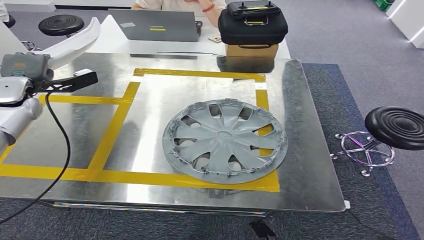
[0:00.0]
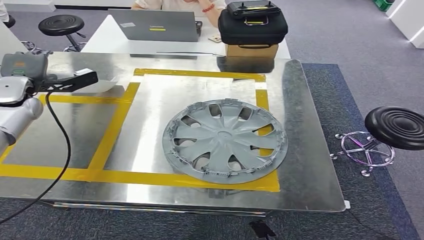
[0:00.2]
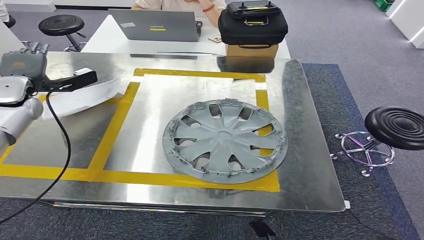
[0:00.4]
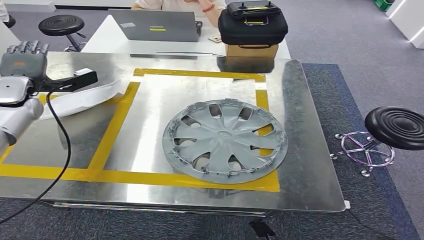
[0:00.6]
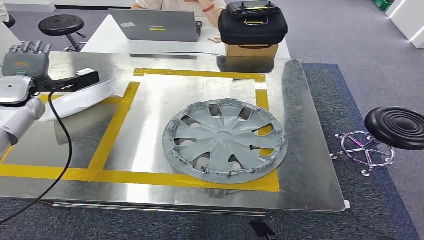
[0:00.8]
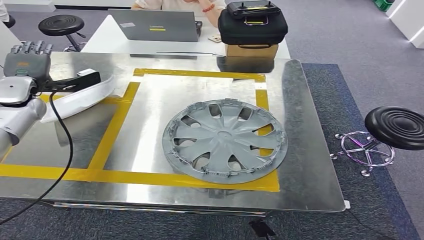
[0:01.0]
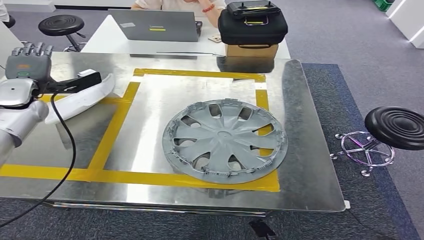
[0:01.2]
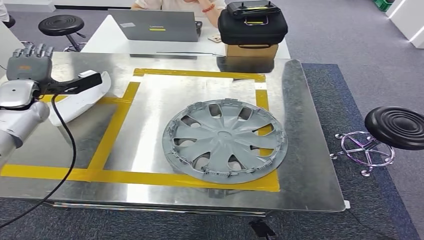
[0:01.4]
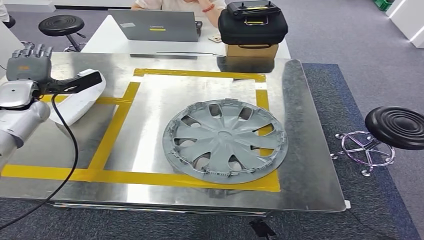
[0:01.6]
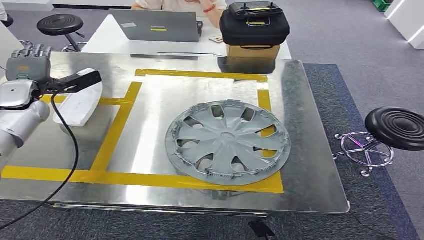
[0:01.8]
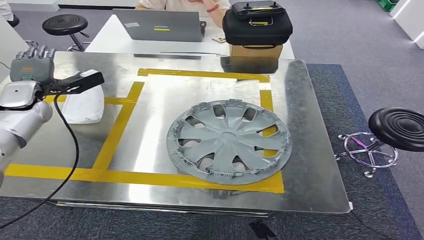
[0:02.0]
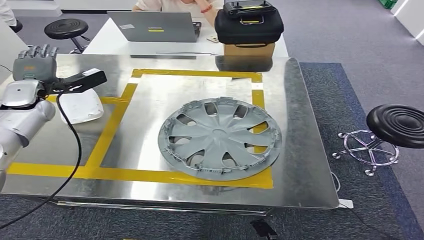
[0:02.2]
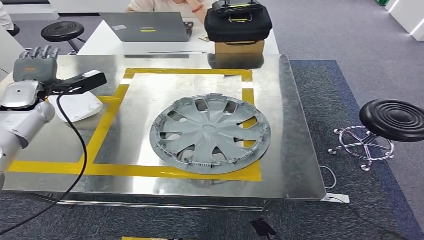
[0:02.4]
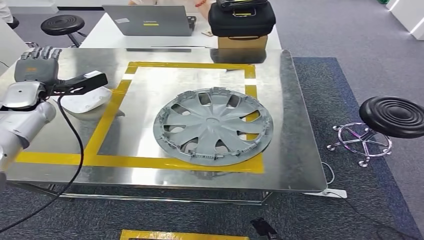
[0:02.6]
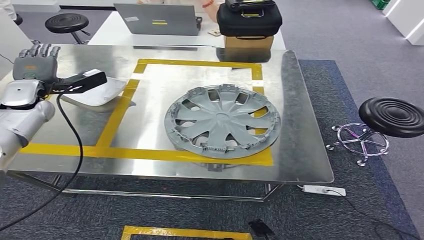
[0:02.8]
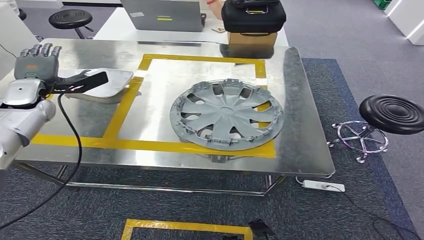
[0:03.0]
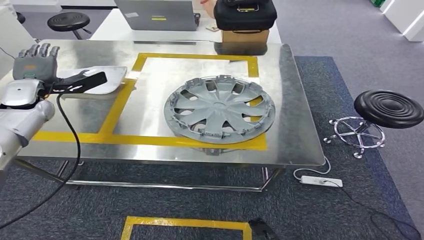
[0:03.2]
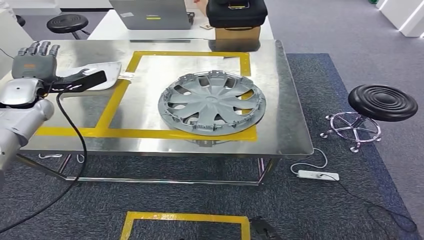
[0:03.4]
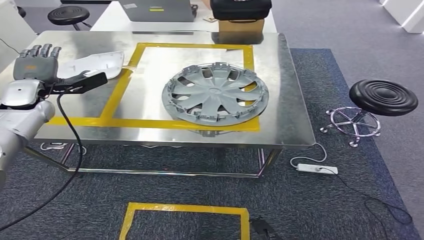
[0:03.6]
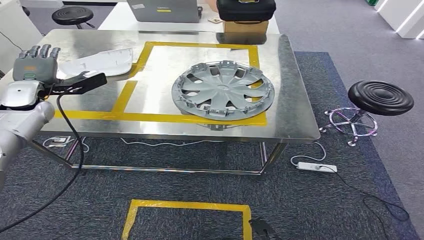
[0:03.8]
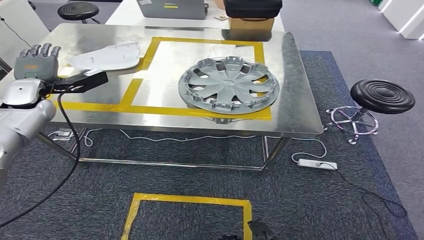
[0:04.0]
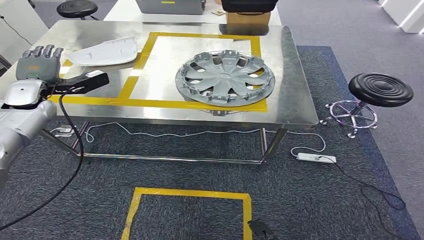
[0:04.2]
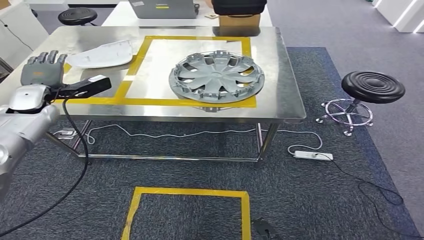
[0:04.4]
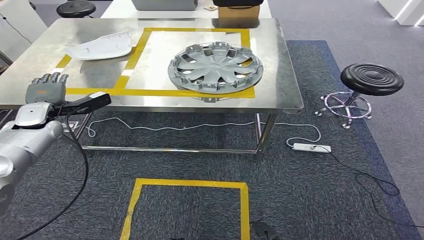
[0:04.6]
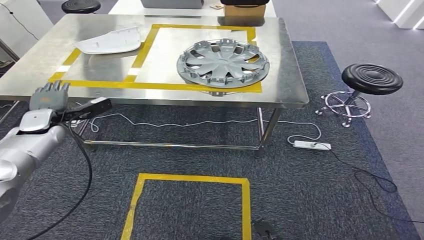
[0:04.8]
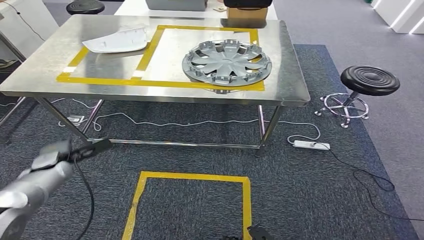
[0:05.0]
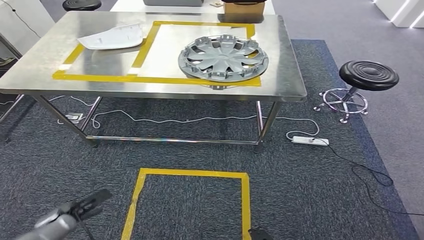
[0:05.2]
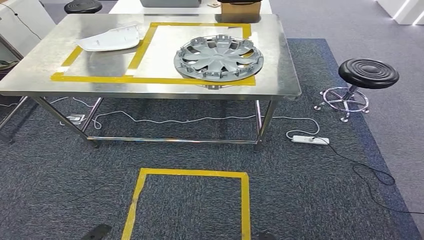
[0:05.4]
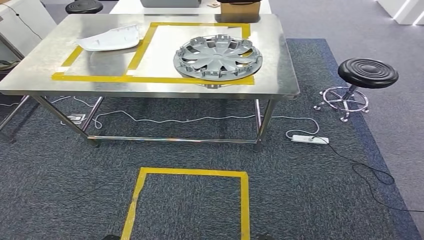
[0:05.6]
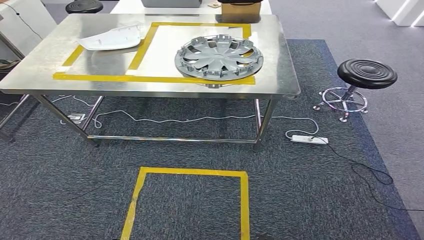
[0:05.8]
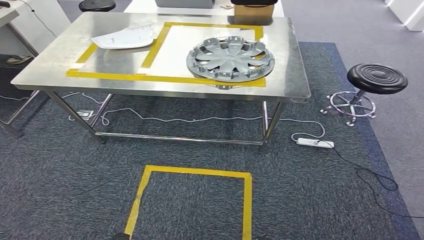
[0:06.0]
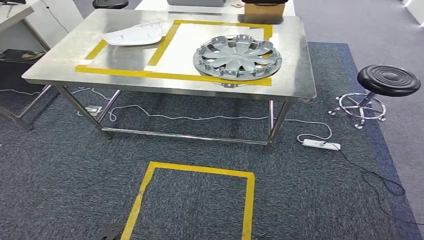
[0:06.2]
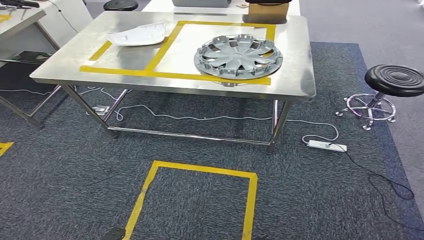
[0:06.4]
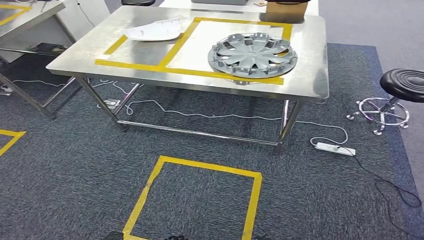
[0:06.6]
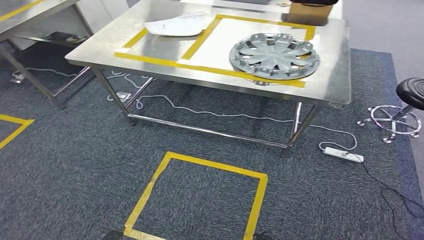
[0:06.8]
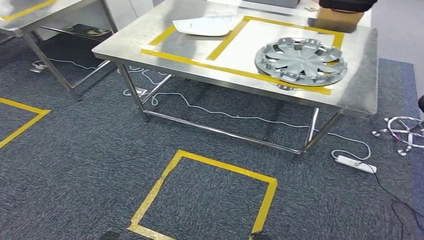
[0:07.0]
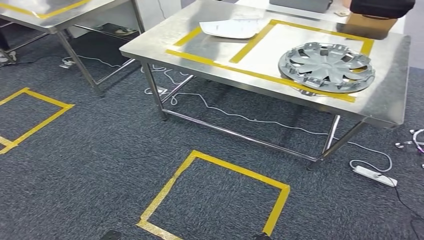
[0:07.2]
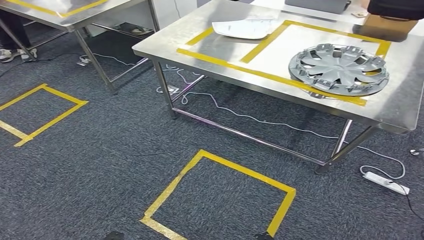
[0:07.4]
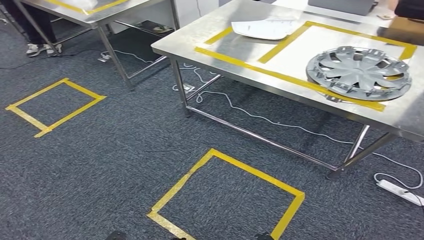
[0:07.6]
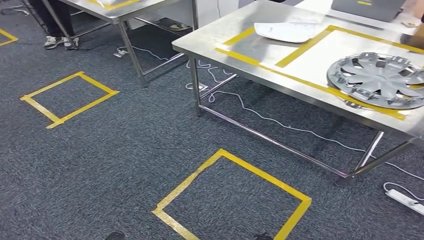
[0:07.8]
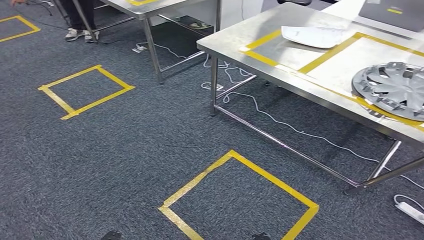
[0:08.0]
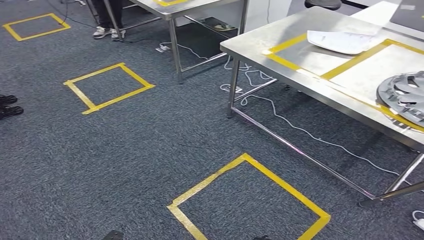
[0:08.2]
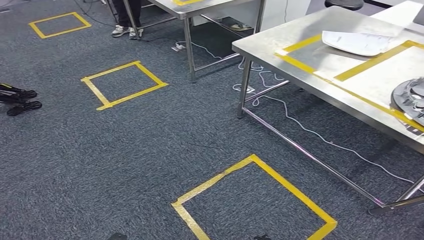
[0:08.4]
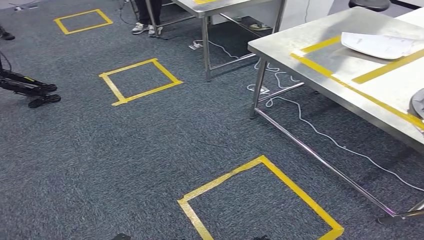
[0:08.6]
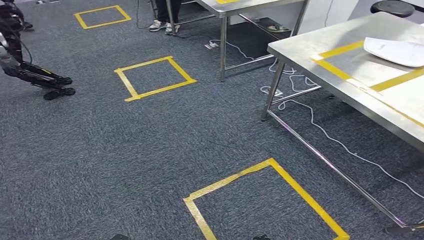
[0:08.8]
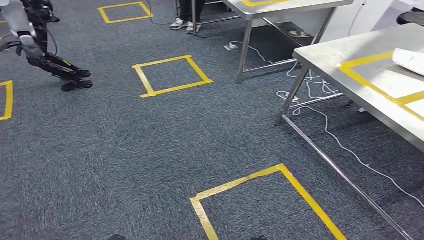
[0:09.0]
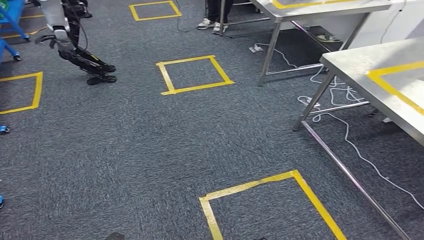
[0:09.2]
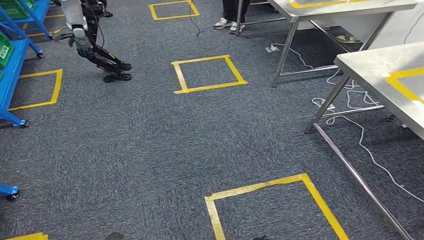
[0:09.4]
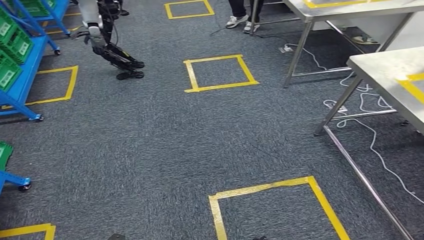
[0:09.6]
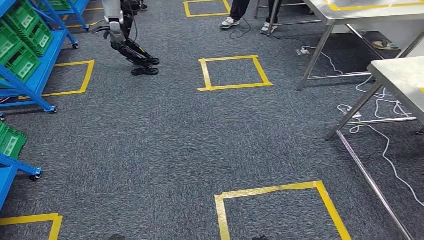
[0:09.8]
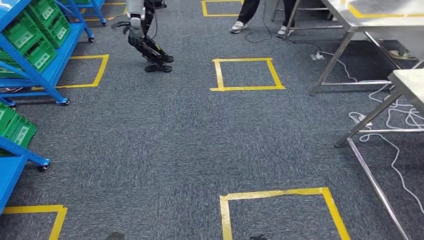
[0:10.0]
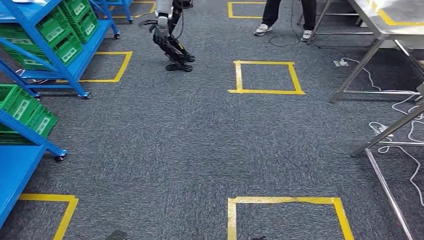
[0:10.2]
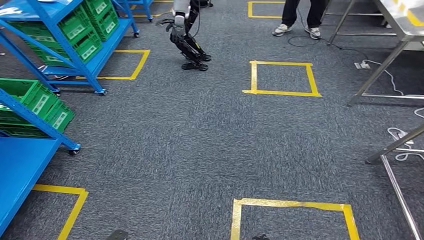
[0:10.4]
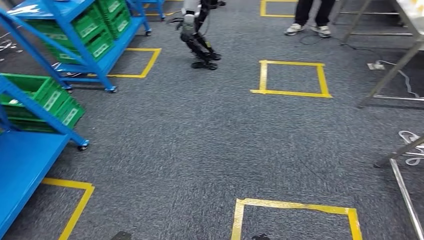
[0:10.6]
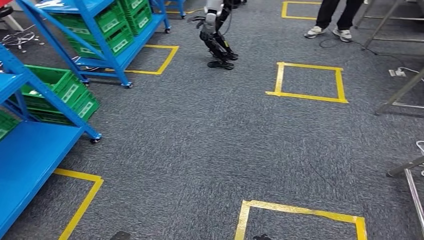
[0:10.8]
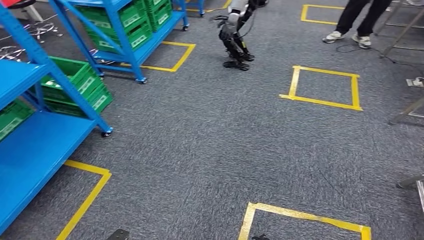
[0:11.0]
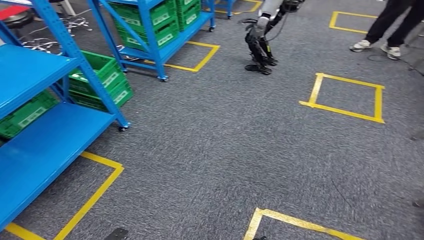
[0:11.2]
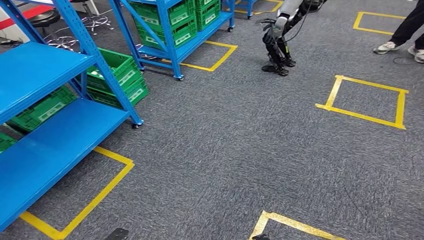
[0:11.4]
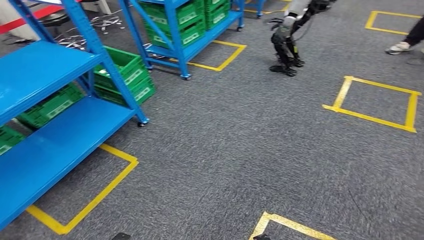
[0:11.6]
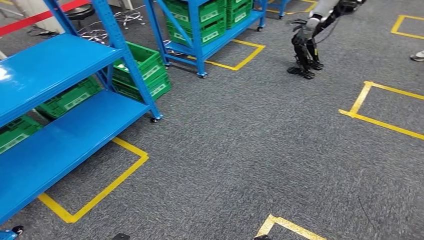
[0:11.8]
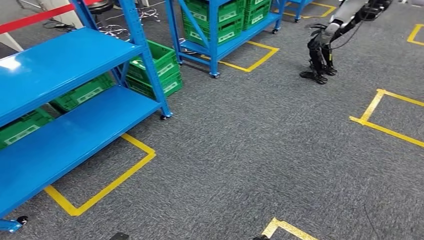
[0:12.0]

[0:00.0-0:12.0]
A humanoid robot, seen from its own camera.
Step, 0:00.0 to 0:02.6: Insert the small component into the corresponding slot on the workbench.
0:00.0 to 0:01.6: Both hands stay about where they are.

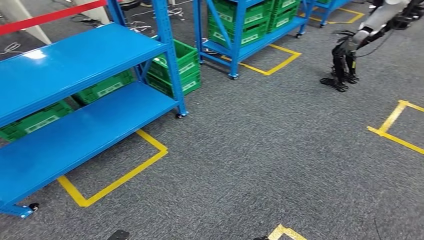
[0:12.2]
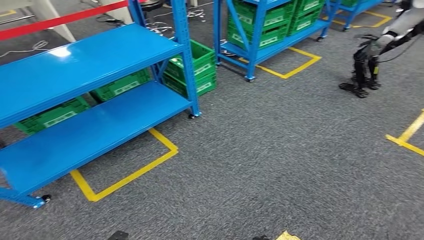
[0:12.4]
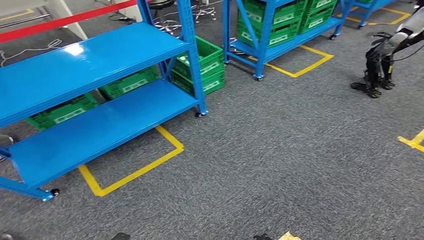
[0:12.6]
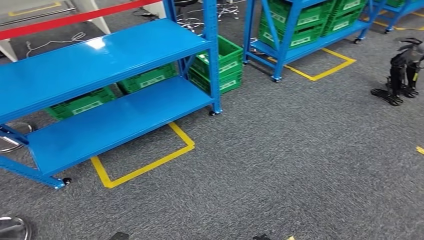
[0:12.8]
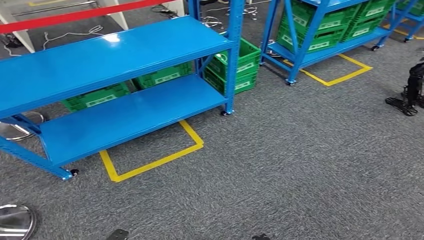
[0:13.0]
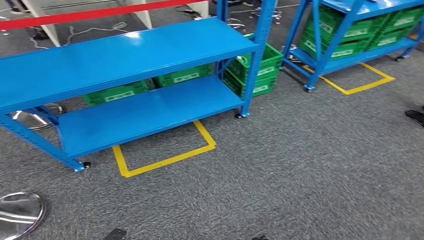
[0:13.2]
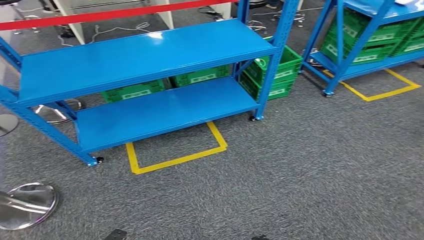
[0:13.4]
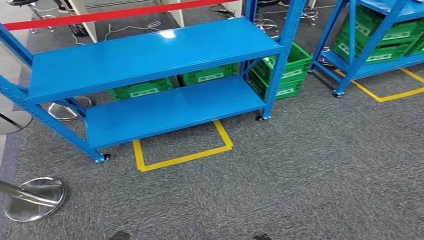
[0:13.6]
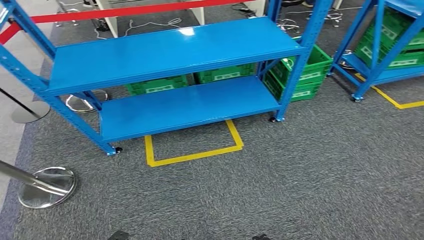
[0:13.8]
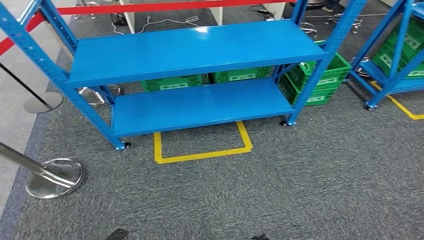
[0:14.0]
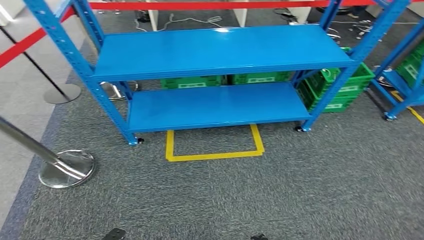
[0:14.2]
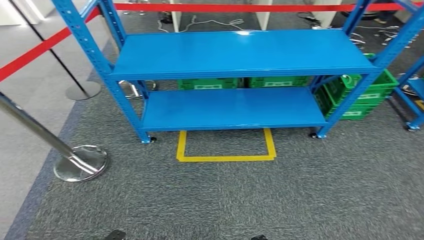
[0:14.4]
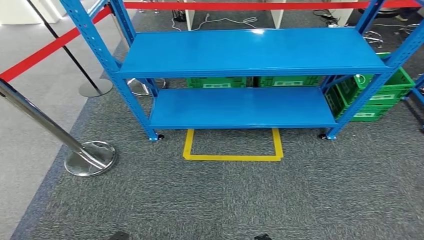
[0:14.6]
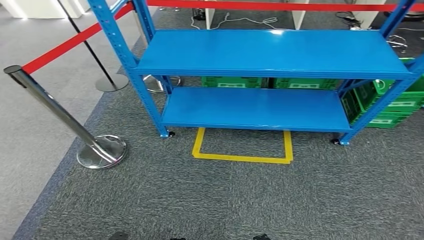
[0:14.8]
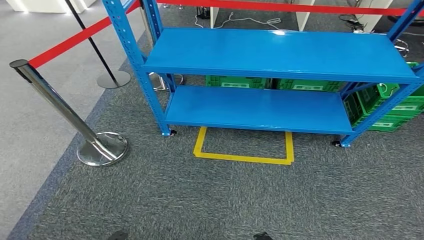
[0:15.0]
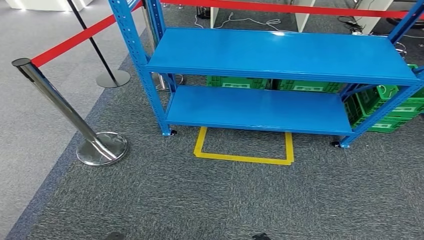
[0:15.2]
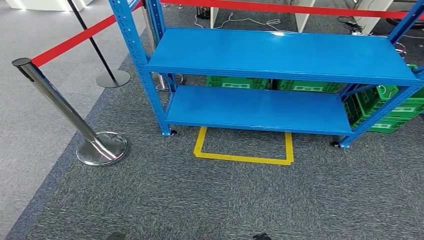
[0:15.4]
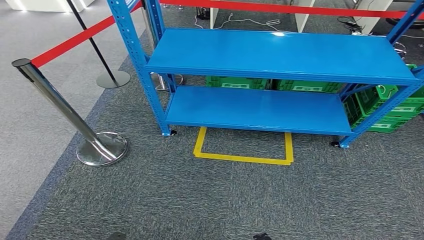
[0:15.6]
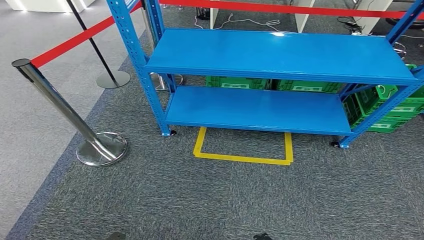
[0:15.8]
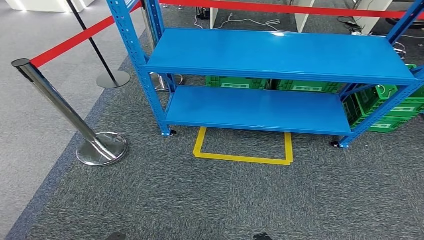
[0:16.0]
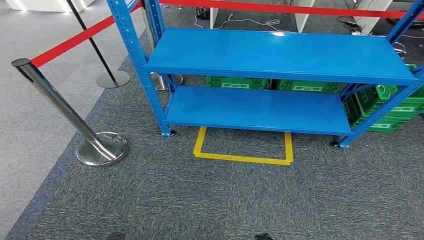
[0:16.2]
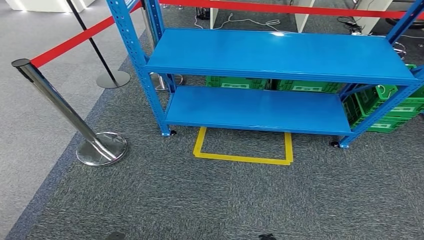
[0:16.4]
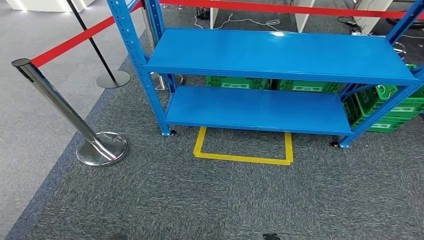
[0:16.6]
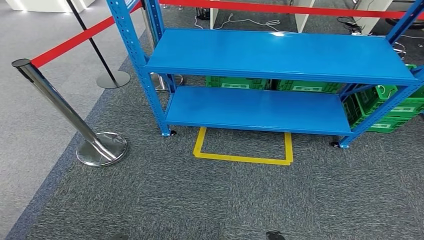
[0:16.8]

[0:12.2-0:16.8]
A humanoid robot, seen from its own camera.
Step, 0:12.2 to 0:16.8: Move to the initial position of the workbench.
0:15.2 to 0:16.8: The hands stay close to where they were, moving slightly.
